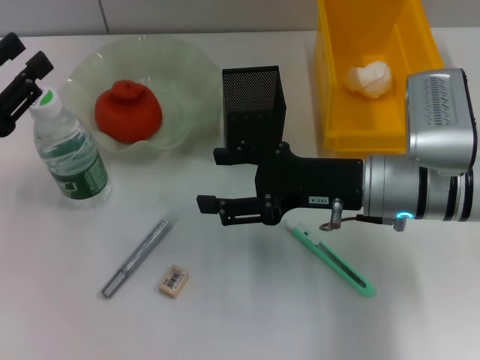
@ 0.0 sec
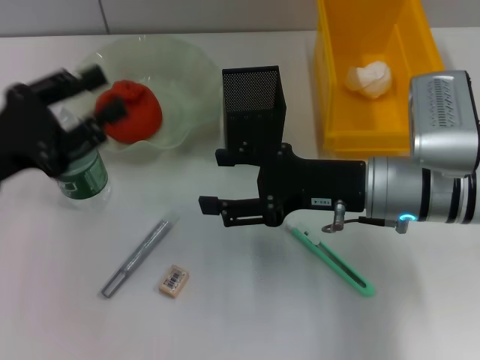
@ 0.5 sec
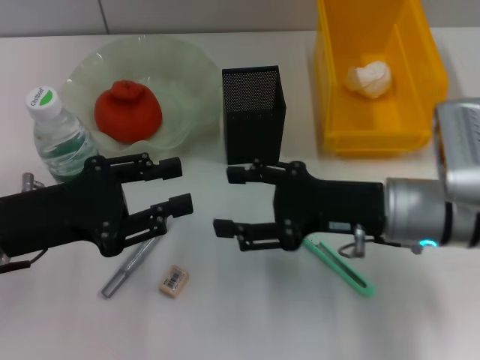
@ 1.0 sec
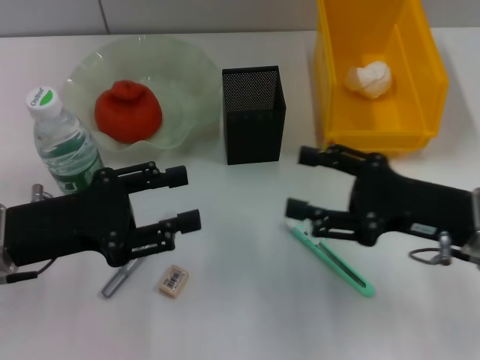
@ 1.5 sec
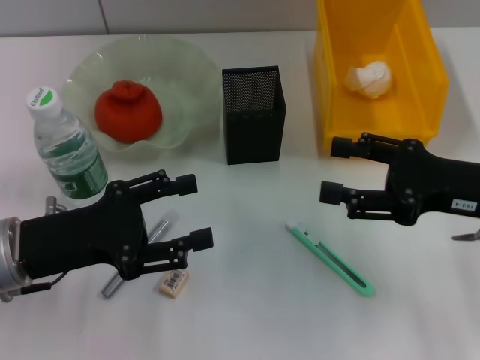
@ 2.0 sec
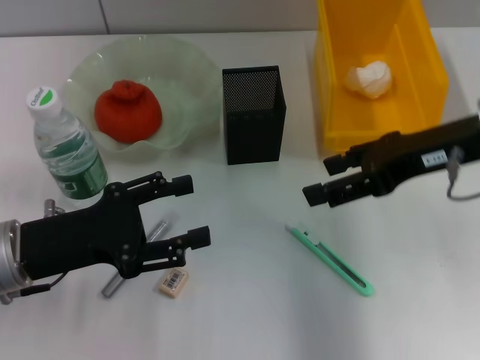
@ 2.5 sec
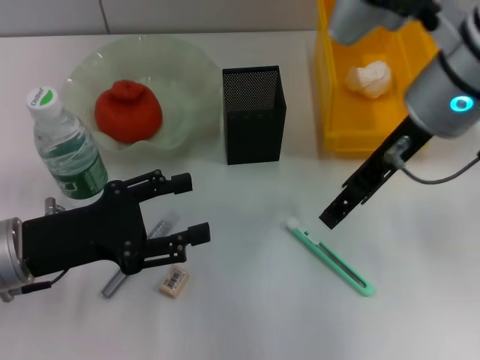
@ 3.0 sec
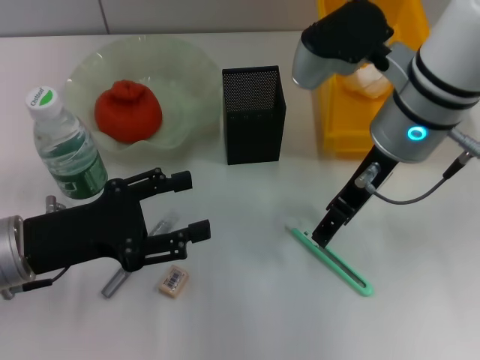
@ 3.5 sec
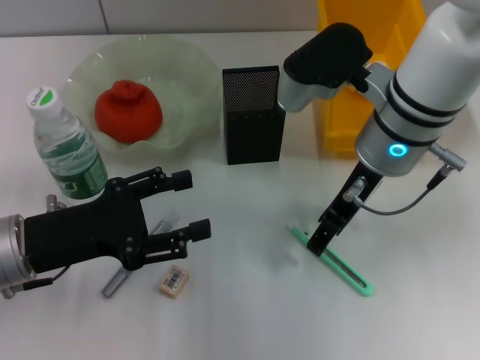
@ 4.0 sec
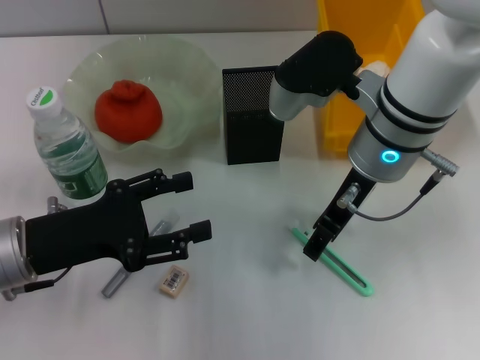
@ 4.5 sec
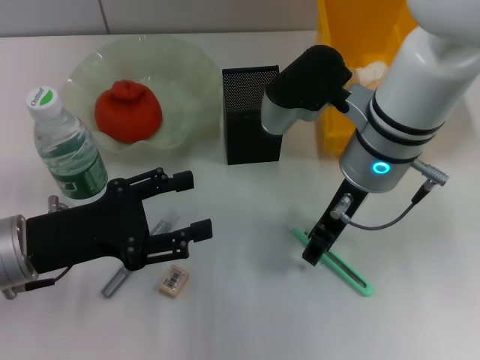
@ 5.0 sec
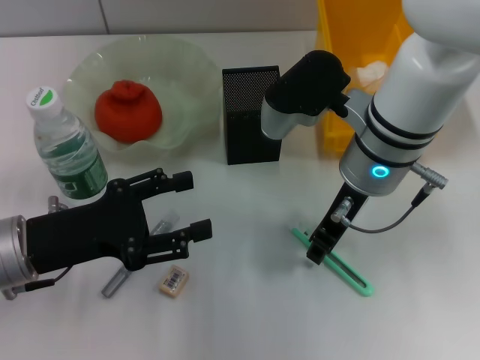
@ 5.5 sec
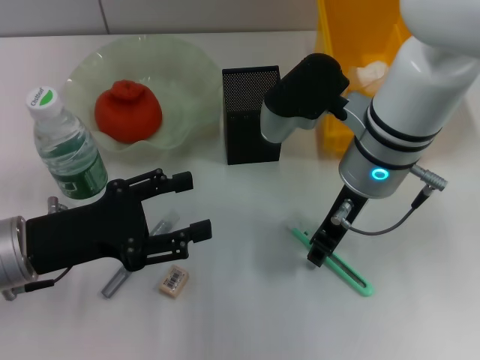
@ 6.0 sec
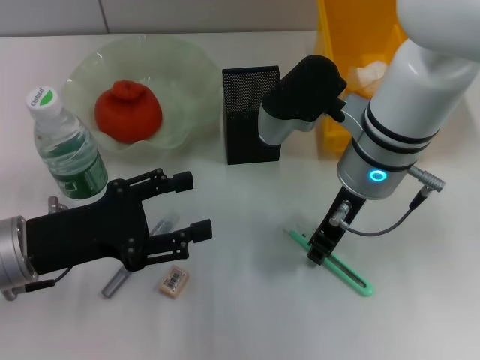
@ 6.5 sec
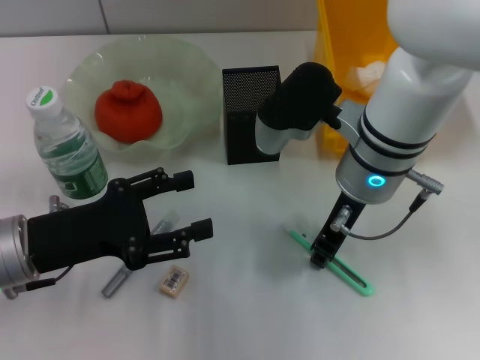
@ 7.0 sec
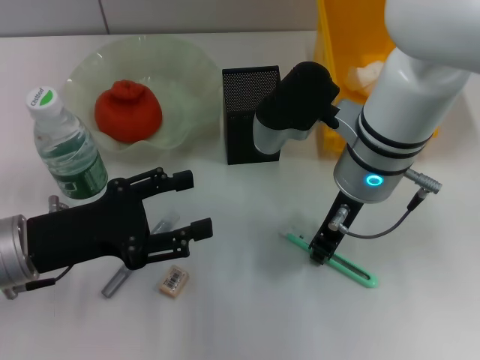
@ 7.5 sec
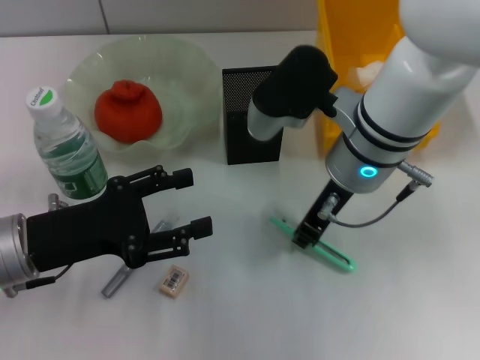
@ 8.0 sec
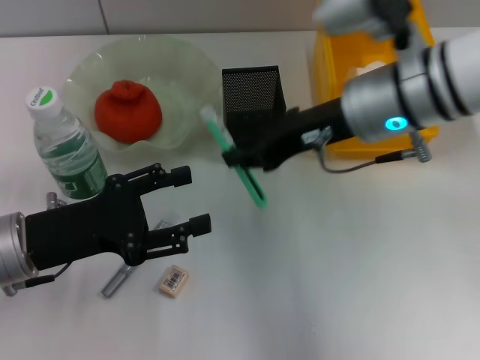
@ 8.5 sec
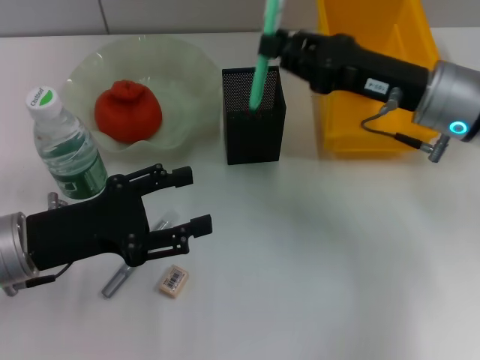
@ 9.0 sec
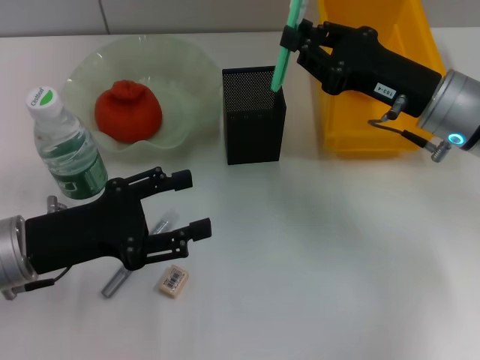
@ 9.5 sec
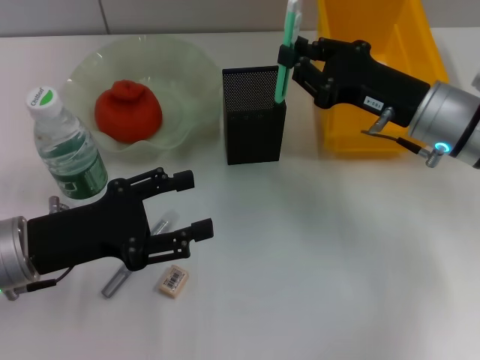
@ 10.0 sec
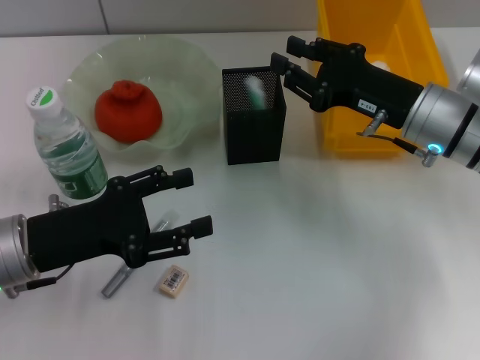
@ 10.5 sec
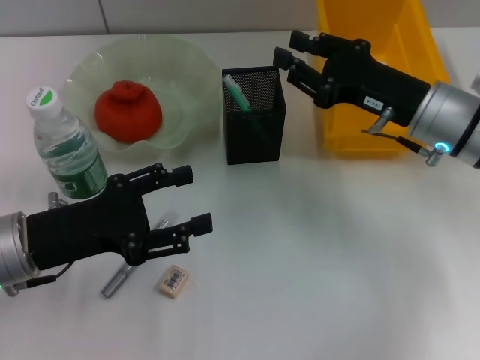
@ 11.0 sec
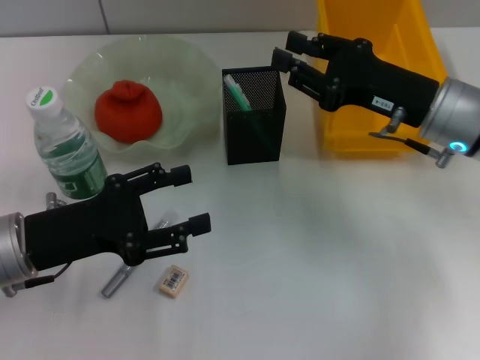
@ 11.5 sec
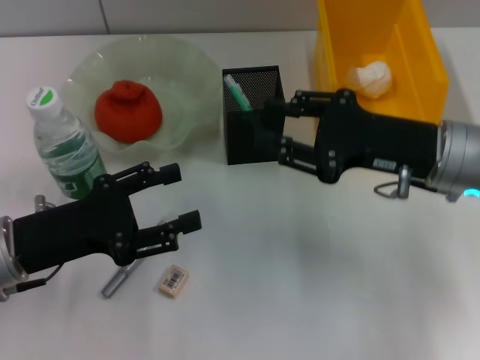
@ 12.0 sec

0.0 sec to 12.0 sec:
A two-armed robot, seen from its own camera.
Step, 0.0 sec to 7.5 sec: Grab the blue utility knife with the right hand.
Step, 8.0 sec to 10.5 sec: Place the blue utility knife into the pen holder with the right hand.
0.0 sec to 2.0 sec: Both grippers travel together to the right, about 10 cm. The left gripper opens its fingers.
2.0 sec to 4.0 sec: The right gripper shifts about 15 cm to the left and forward.
4.0 sec to 6.0 sec: The right gripper closes up.
6.0 sec to 8.0 sec: The grippers move only a little.
8.0 sec to 10.0 sec: The right gripper heads to the right, covering roughly 10 cm.
10.0 sec to 12.0 sec: There are only small adjustments of the grippers.

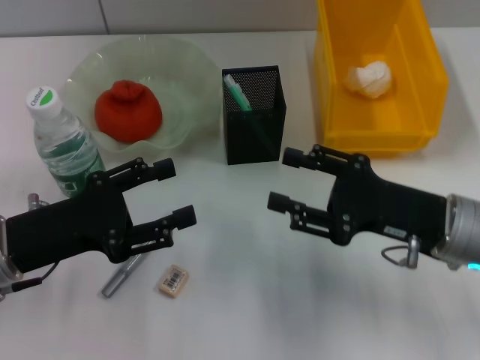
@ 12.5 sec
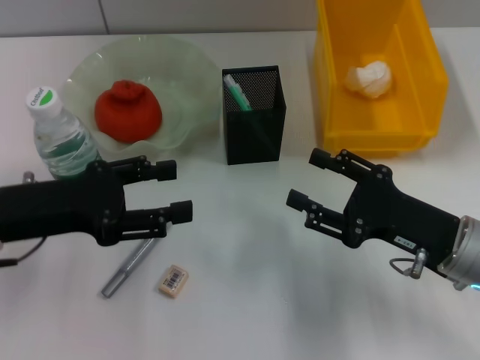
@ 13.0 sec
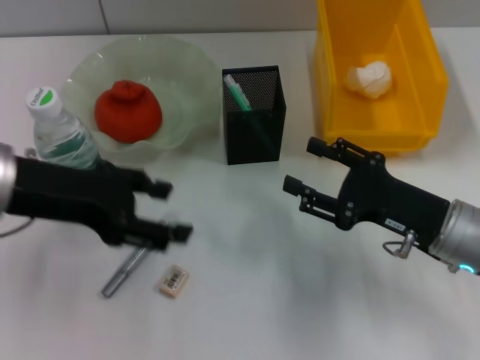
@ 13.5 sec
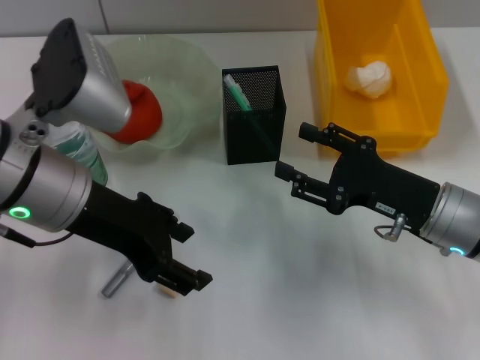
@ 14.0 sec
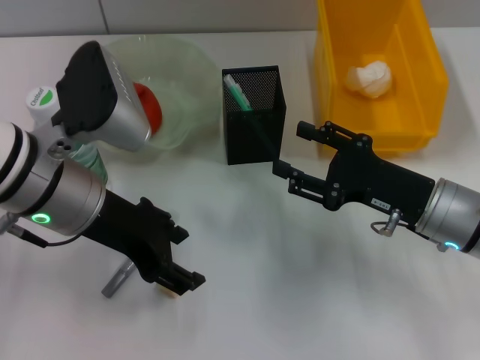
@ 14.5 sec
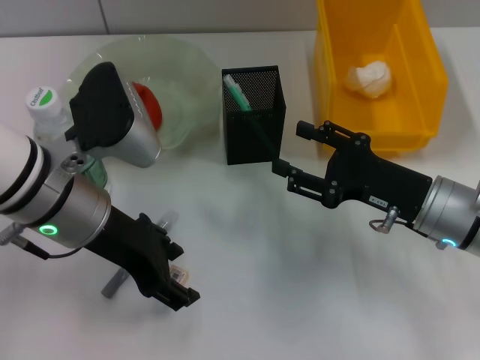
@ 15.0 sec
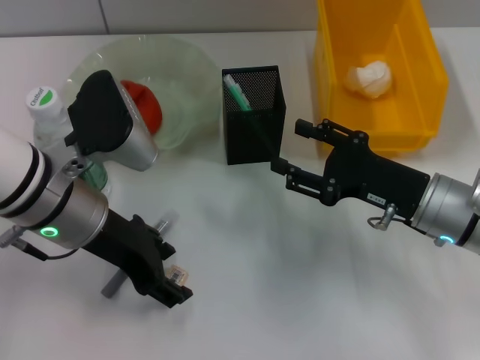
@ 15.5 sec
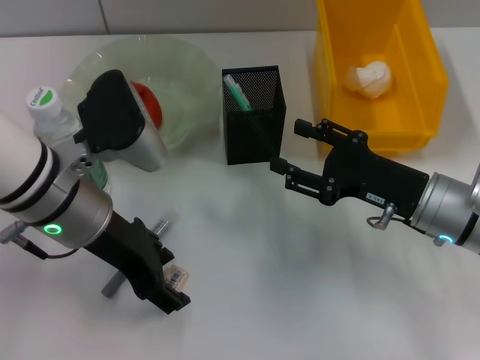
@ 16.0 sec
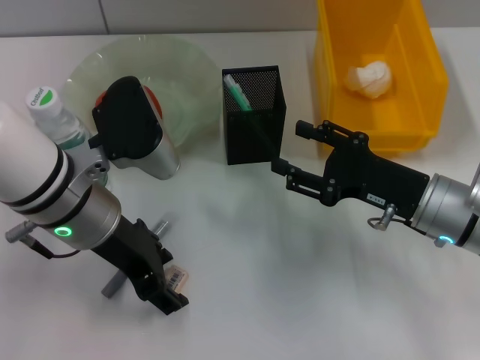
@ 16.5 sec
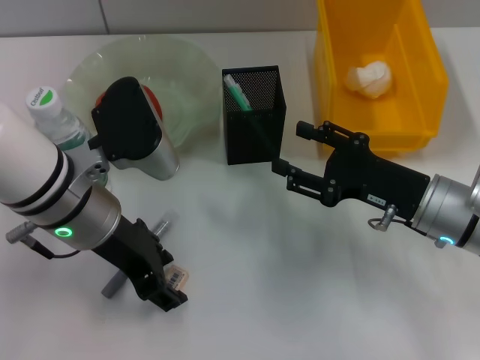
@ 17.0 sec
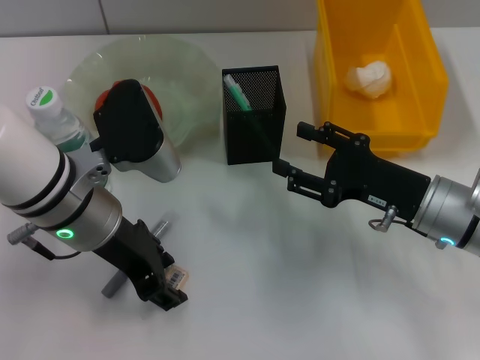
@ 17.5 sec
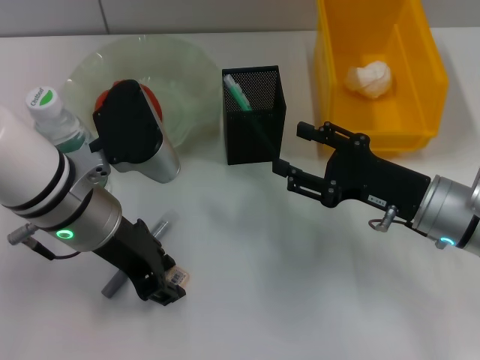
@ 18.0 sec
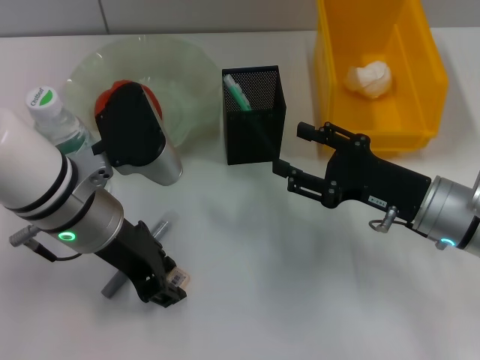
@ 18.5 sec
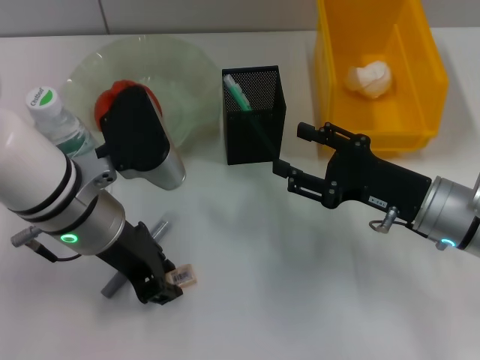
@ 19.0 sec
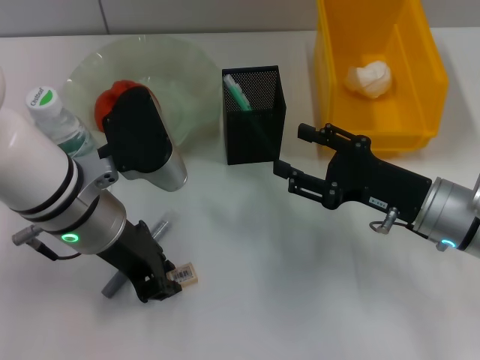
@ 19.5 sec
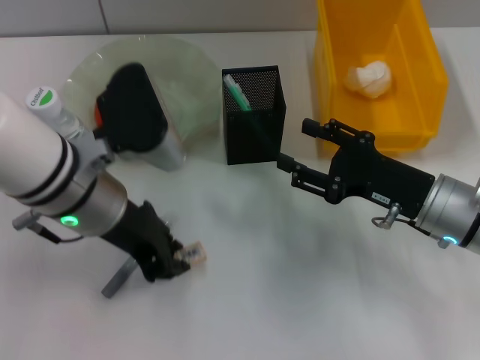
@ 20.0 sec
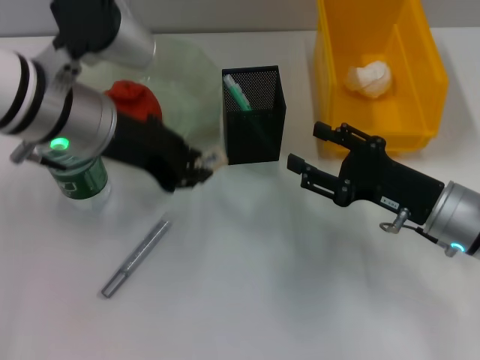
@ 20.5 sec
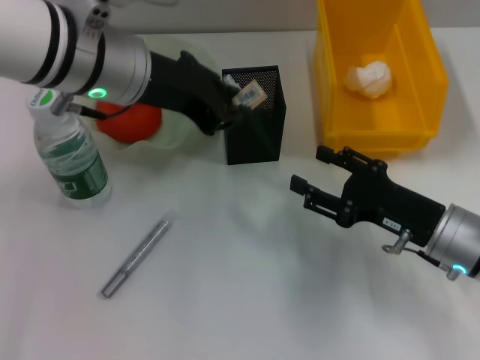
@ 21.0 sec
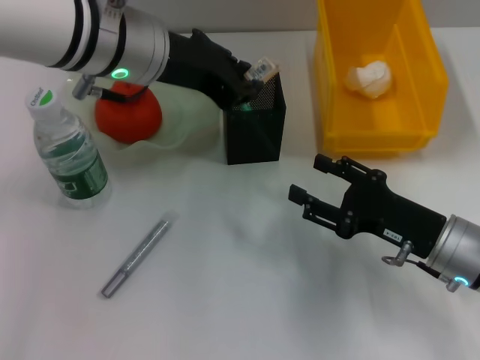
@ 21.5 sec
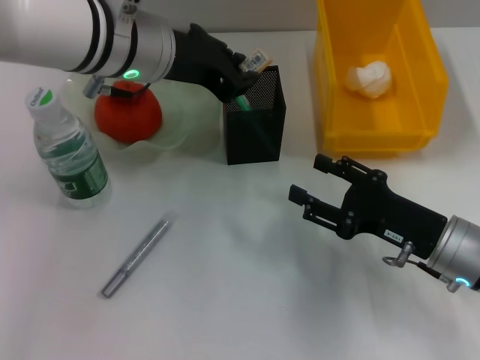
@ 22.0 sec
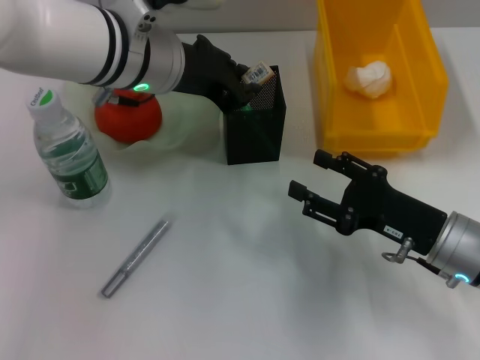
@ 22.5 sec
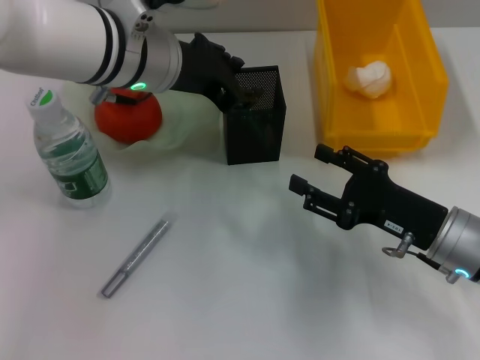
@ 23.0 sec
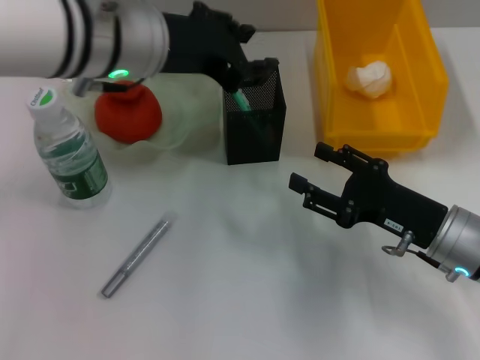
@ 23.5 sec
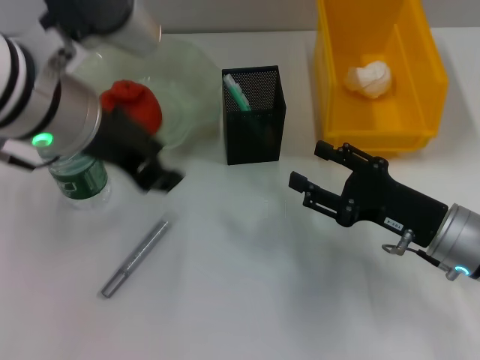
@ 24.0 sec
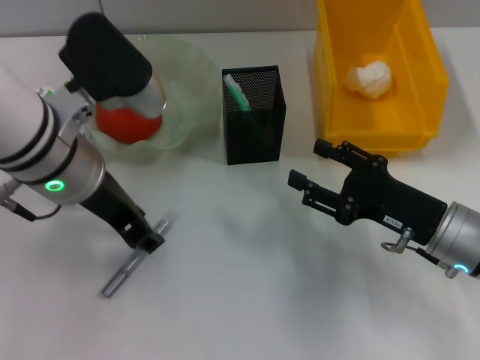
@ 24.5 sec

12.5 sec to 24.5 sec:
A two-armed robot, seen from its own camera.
Step, 12.5 sec to 18.5 sec: Grab the eraser with the left hand.
Step, 19.0 sec to 23.0 sec: Place the eraser into the pen holder with the left hand.
12.5 sec to 14.5 sec: The left gripper is displaced to the right, upward and forward by roughly 15 cm.
14.5 sec to 16.5 sec: The grippers stay close to where they were, moving slightly.
16.5 sec to 18.5 sec: The left gripper closes its fingers.
18.5 sec to 20.5 sec: The left gripper goes roughly 5 cm upward.
20.5 sec to 22.5 sec: The left gripper travels to the right by roughly 5 cm.
22.5 sec to 24.5 sec: The left gripper travels backward by some 10 cm.

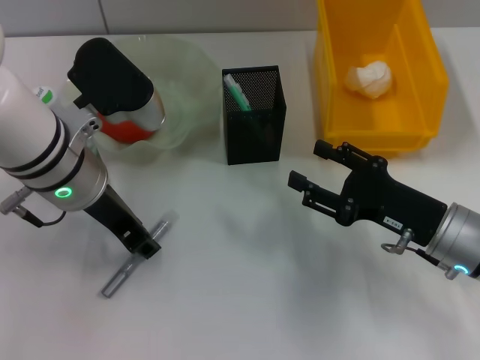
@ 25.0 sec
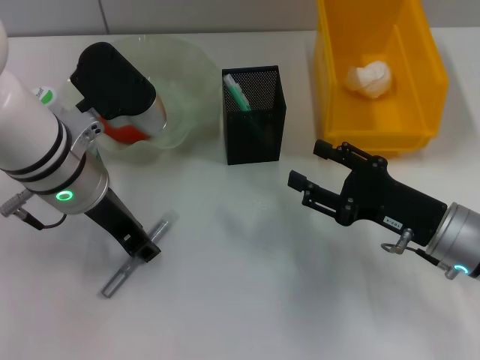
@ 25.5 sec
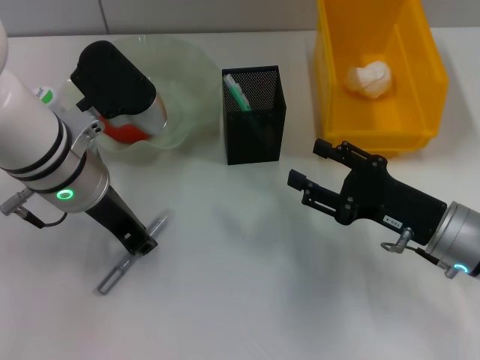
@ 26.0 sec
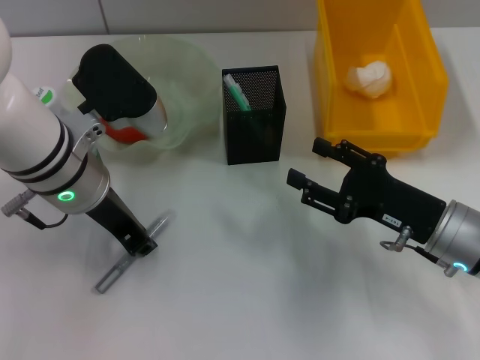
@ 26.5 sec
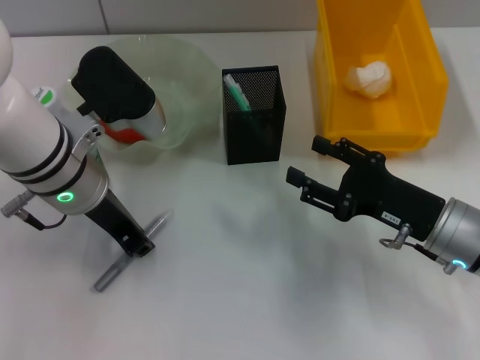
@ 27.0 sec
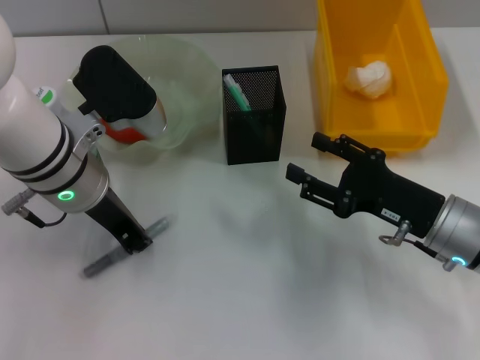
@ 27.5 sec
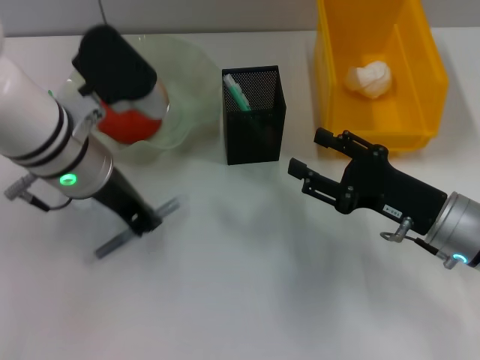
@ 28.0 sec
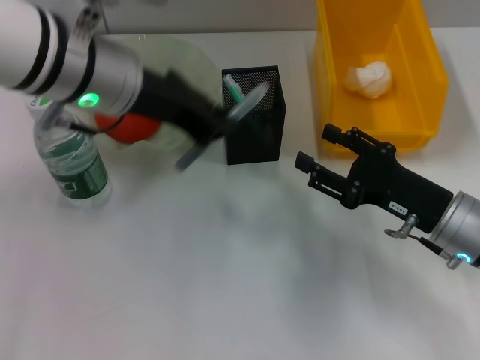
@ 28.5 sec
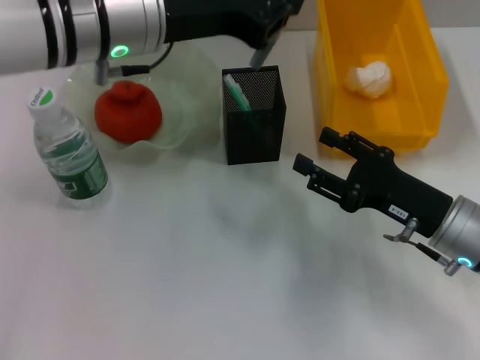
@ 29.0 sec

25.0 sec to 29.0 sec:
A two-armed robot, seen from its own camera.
Step, 25.0 sec to 27.5 sec: Grab the gray glue with the left hand.
25.0 sec to 27.0 sec: Both grippers stay put.
27.0 sec to 29.0 sec: The left gripper moves upward, about 10 cm.
